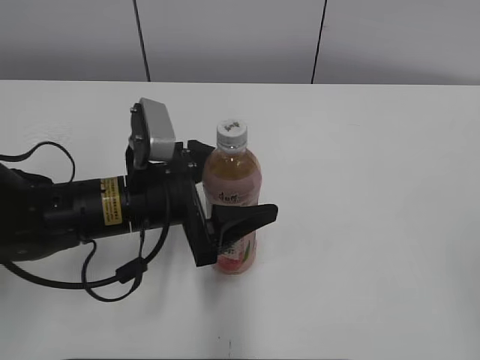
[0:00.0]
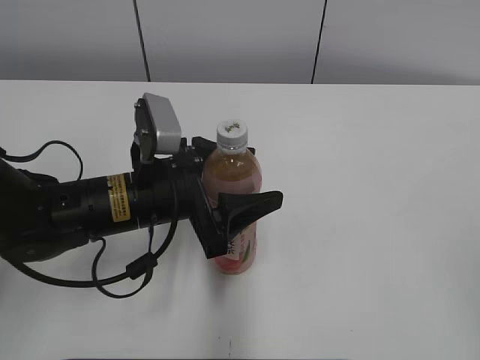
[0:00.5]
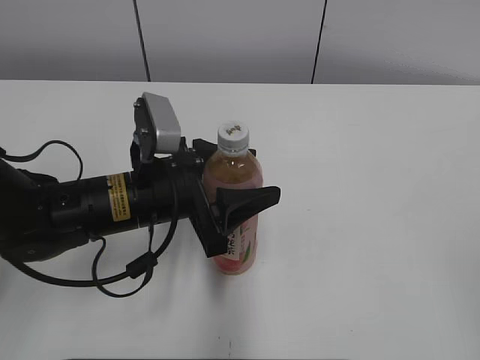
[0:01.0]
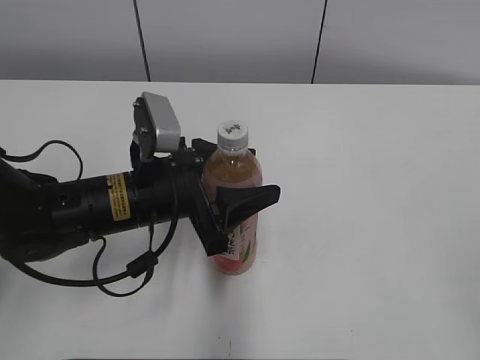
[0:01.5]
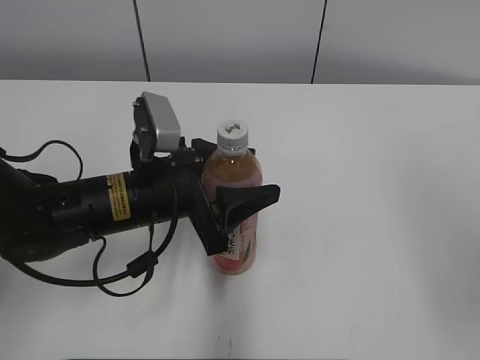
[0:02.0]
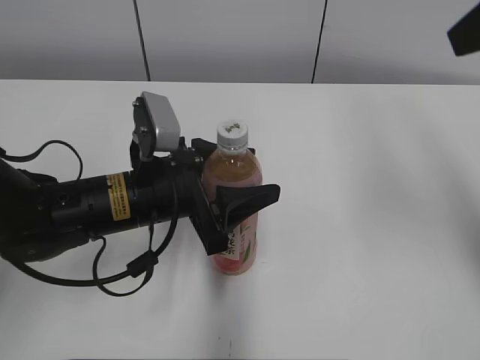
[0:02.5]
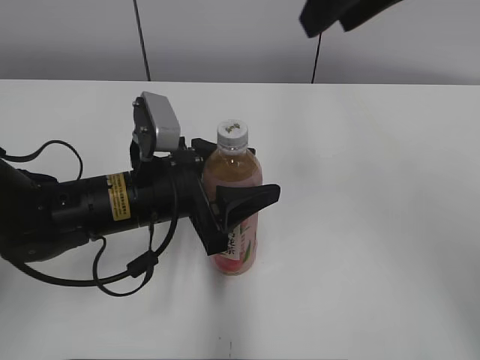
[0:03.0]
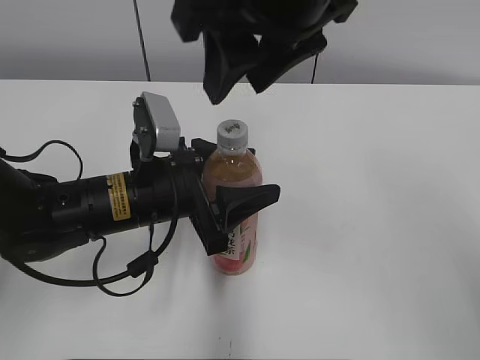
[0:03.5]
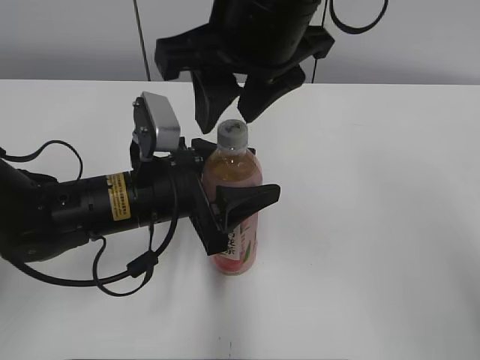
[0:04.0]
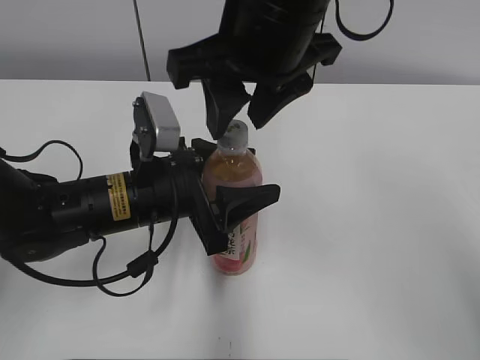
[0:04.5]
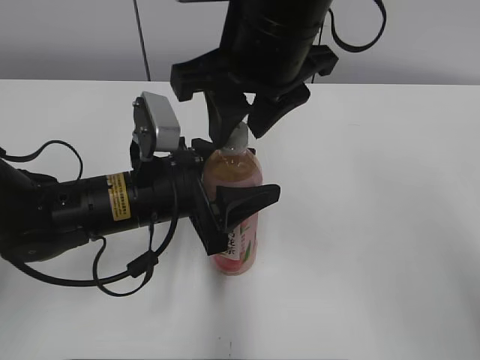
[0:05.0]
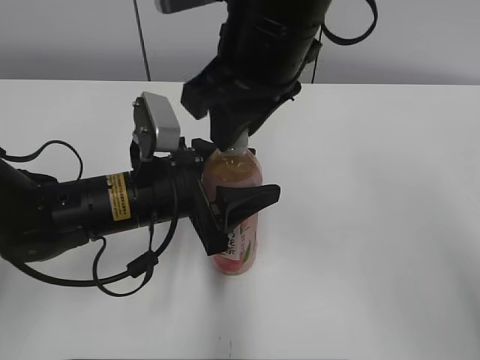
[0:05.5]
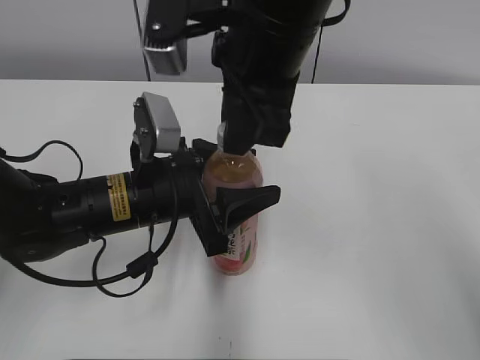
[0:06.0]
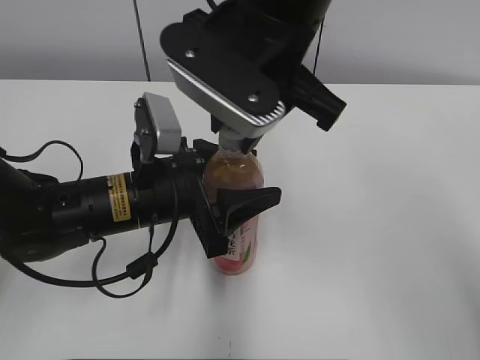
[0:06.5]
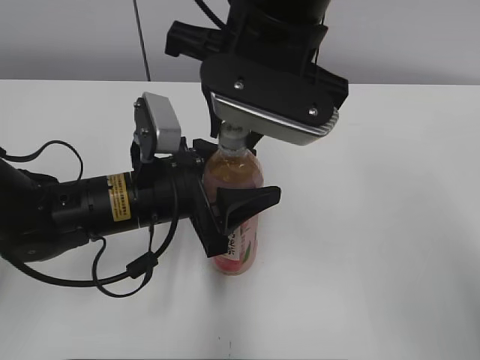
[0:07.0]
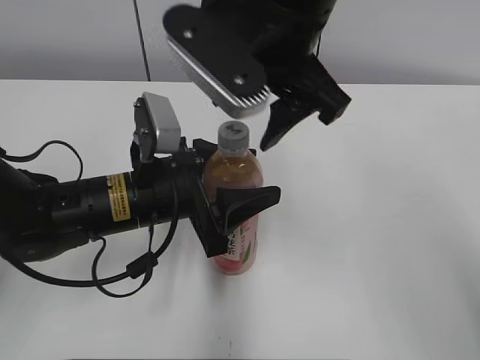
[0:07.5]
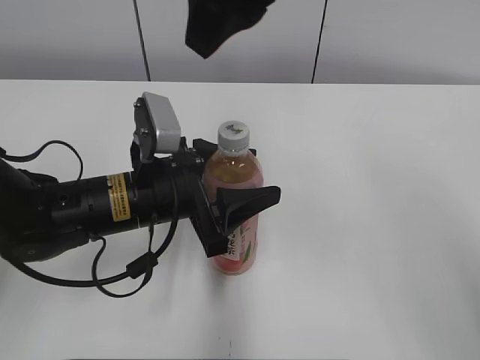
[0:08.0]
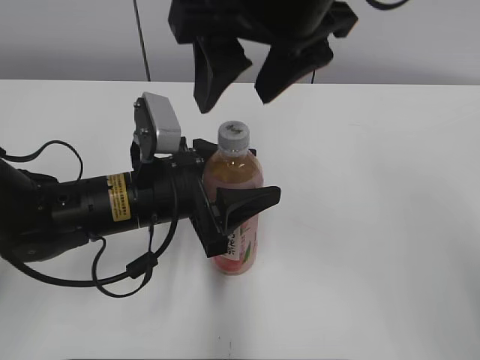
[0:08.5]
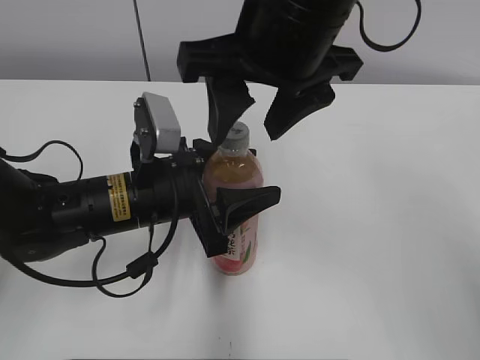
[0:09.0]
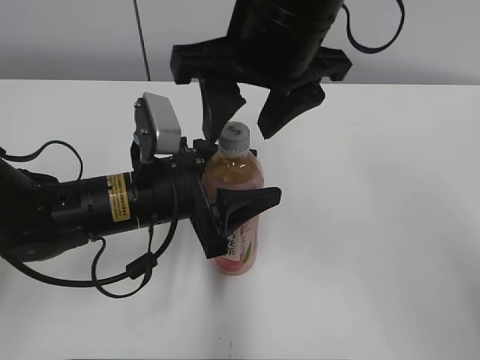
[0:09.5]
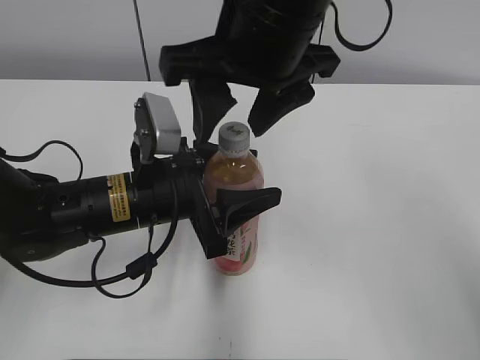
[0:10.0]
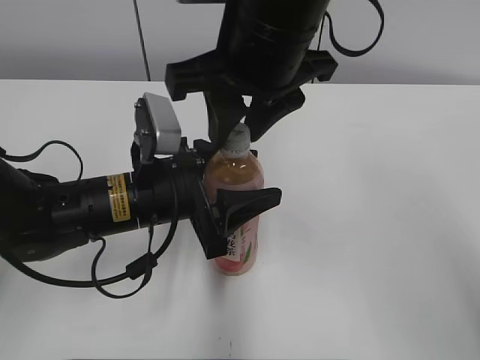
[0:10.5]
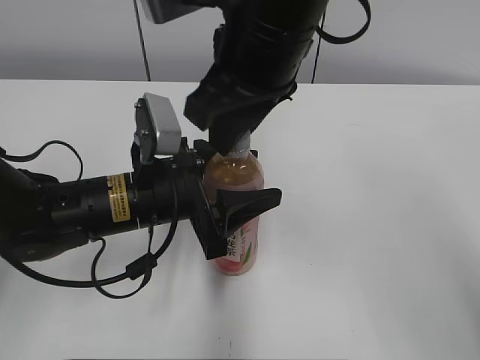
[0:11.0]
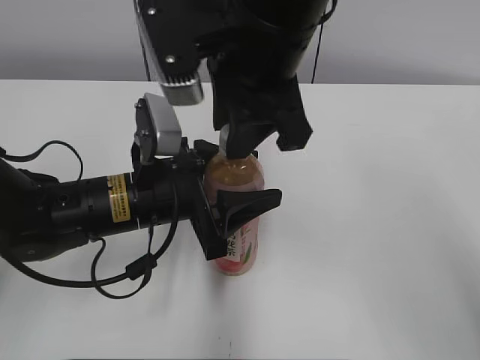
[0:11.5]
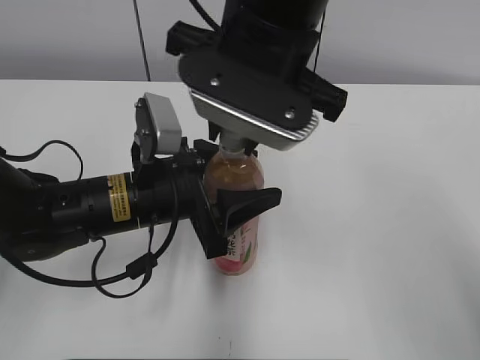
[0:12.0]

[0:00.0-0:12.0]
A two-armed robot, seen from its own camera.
0:00.0 to 0:02.0: The left gripper closes up; the right gripper goes approximately 10 cm forward and upward.
0:02.0 to 0:04.0: The right gripper goes roughly 30 cm to the left and forward, and closes up.
0:04.0 to 0:06.0: The right gripper closes up.
0:06.0 to 0:08.0: The right gripper shifts approximately 10 cm upward, and opens.
0:08.0 to 0:10.0: The right gripper goes roughly 5 cm downward.
0:10.0 to 0:12.0: The right gripper closes up.

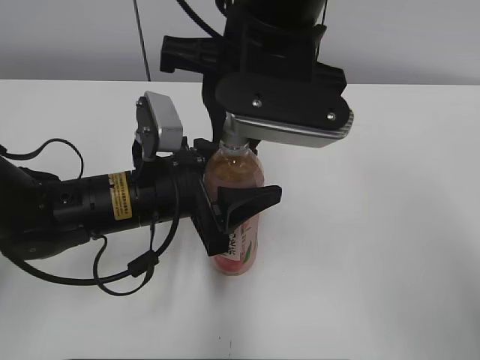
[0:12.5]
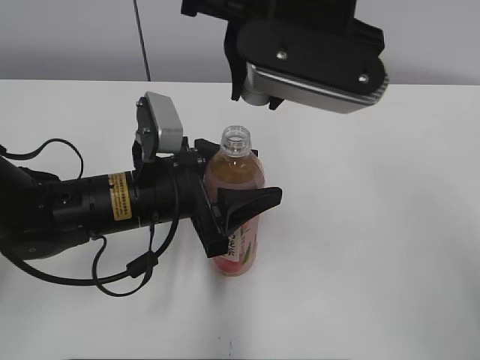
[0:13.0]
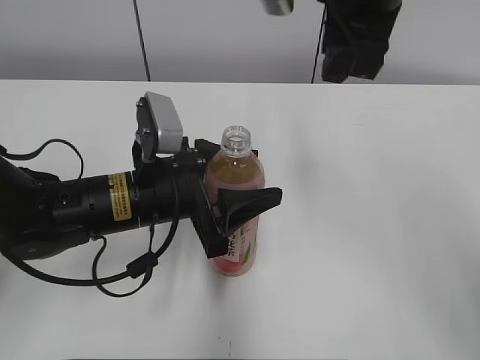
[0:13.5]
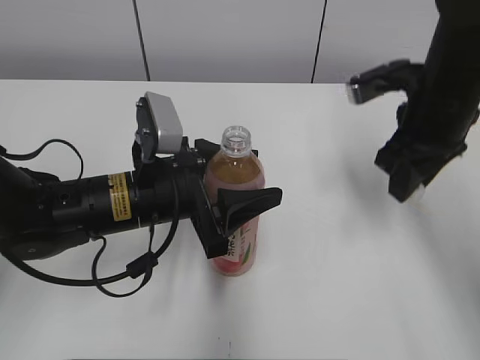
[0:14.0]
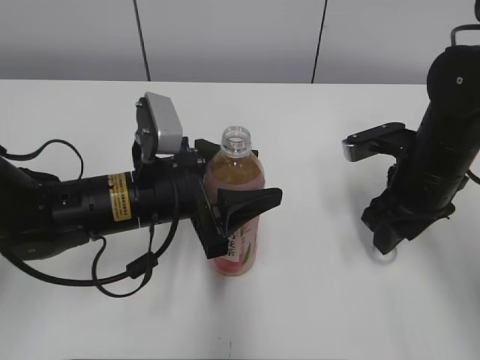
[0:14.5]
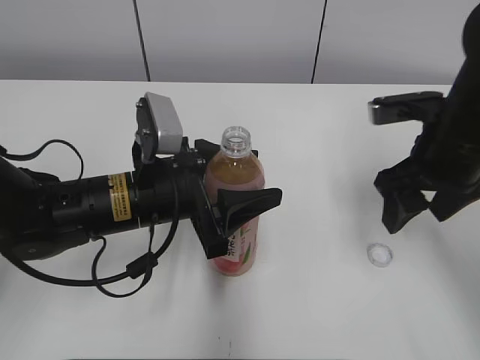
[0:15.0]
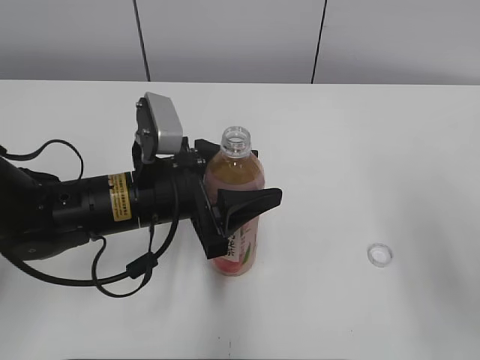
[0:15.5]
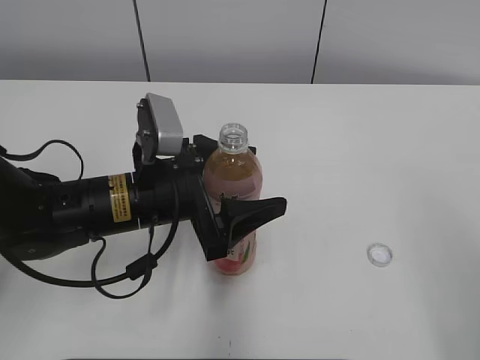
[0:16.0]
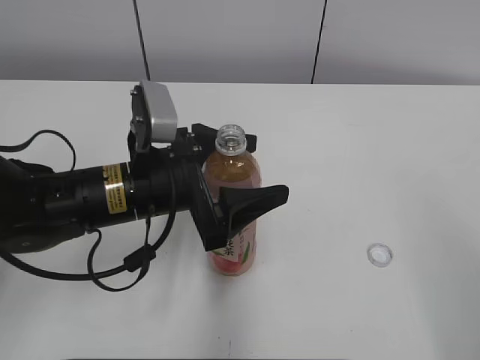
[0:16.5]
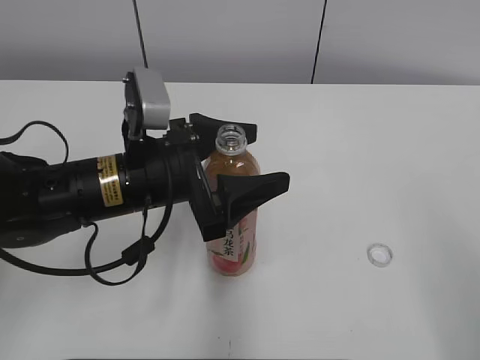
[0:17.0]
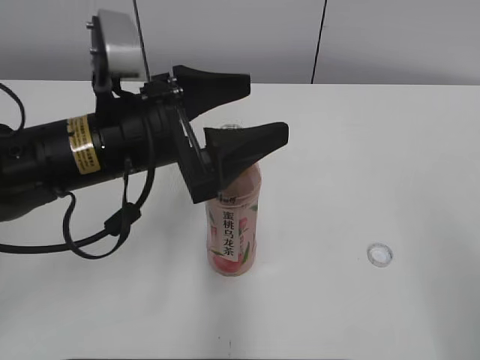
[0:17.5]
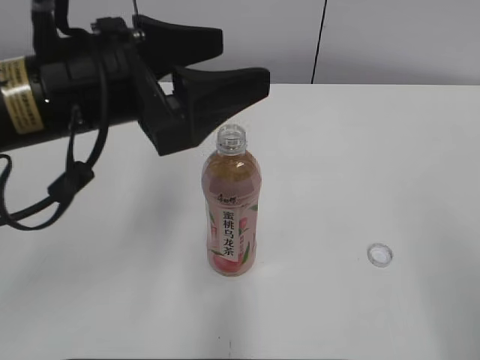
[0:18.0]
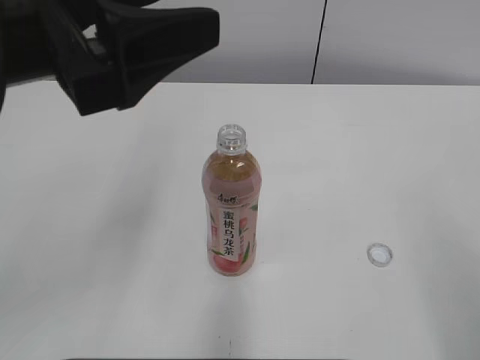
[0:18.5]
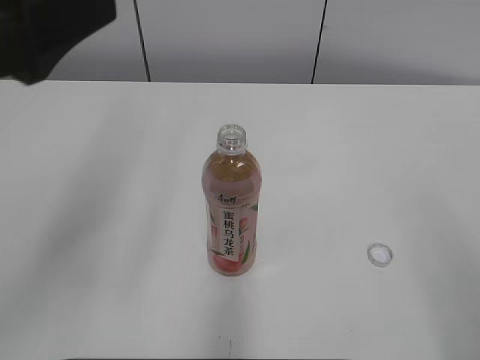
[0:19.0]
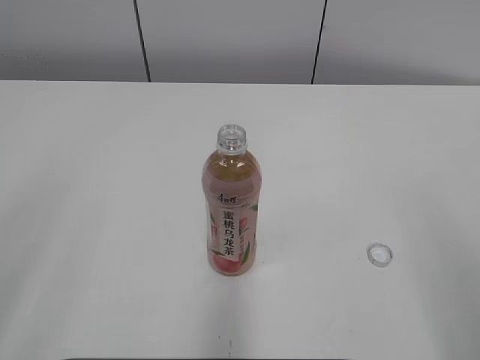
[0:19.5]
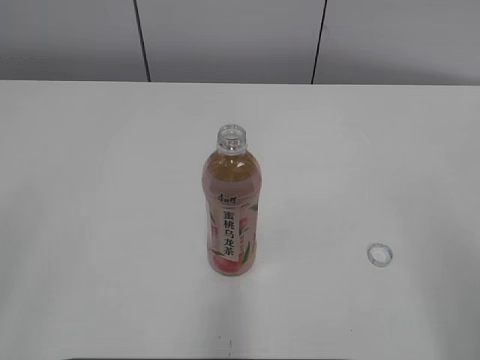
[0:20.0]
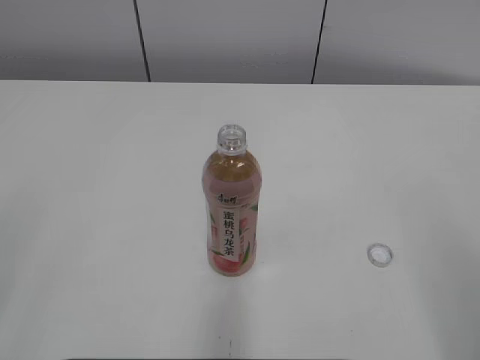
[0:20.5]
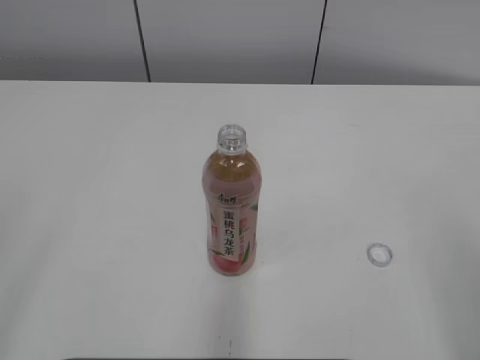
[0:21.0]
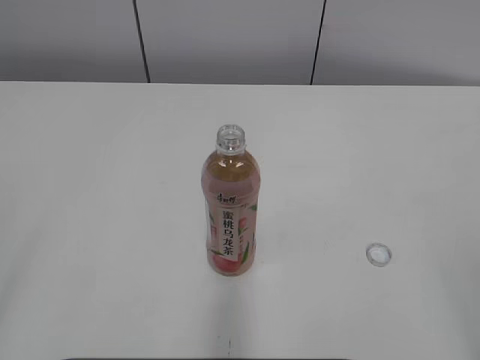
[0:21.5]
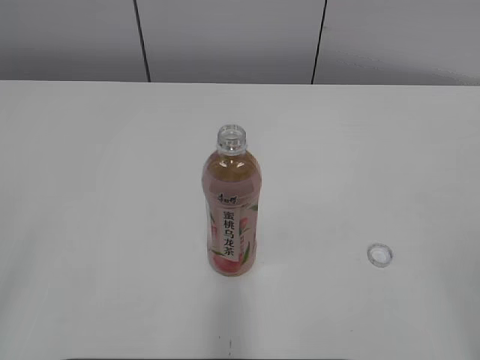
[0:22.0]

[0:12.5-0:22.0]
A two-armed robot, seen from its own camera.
Step, 0:13.0 to 0:14.5: Place the bottle cap on the right.
0:12.5 to 0:14.5: The right gripper is displaced to the right and downward by approximately 25 cm.
0:14.5 to 0:16.5: The right gripper travels backward and upward by roughly 30 cm, and opens up. The left gripper opens up.
0:16.5 to 0:18.0: The left gripper shifts some 10 cm upward.
0:18.0 to 0:20.0: The left gripper goes approximately 30 cm backward and to the left.
